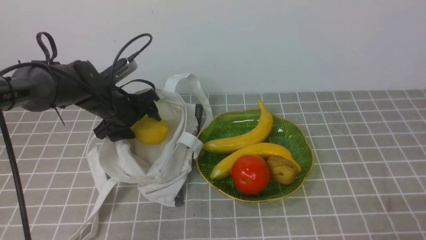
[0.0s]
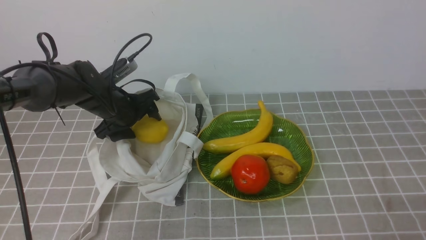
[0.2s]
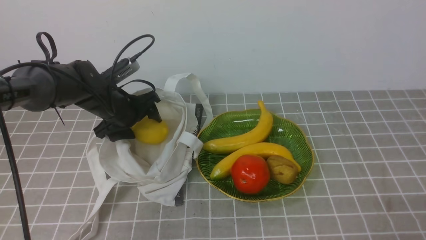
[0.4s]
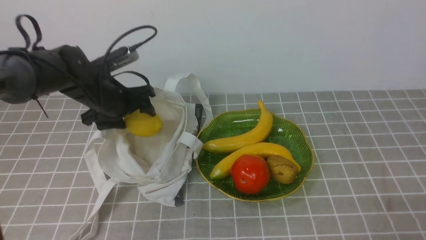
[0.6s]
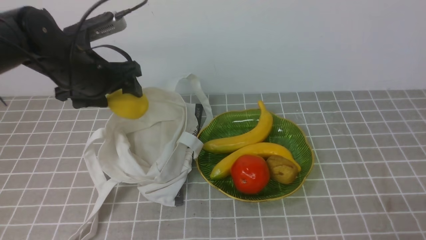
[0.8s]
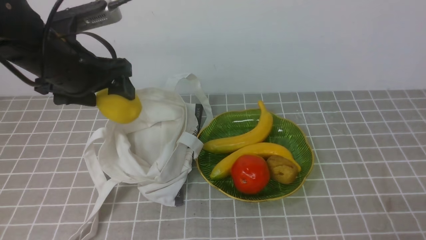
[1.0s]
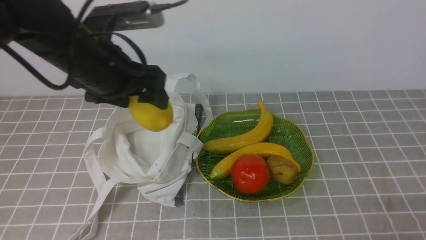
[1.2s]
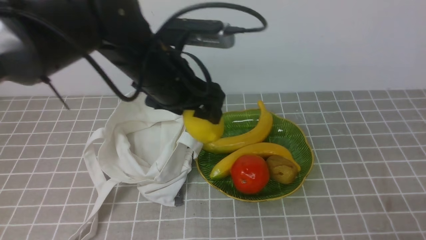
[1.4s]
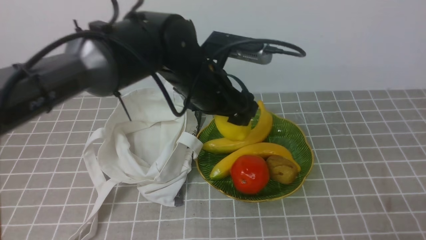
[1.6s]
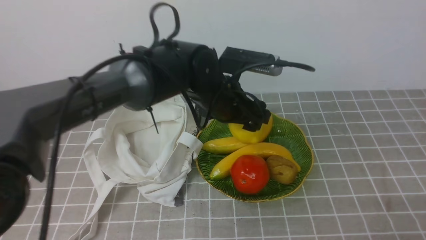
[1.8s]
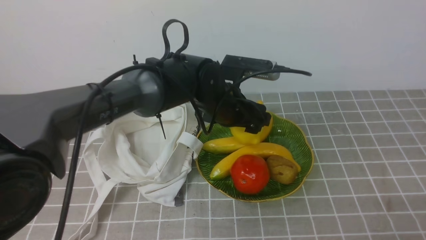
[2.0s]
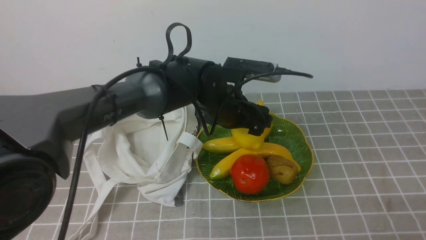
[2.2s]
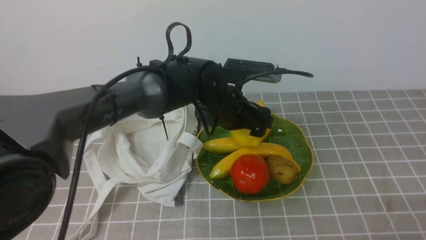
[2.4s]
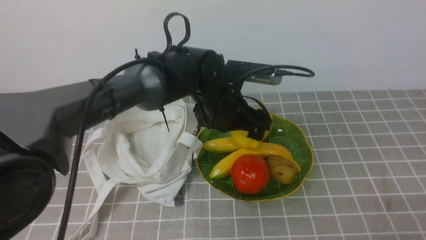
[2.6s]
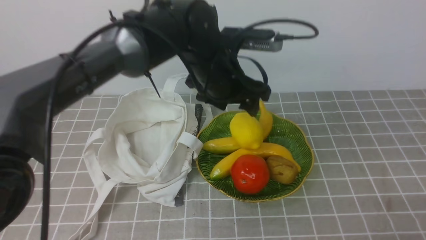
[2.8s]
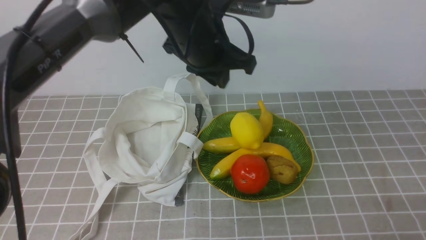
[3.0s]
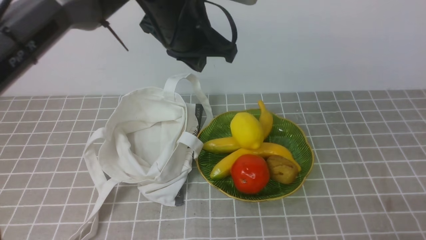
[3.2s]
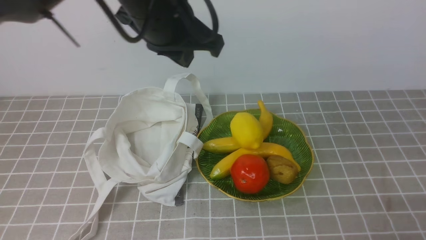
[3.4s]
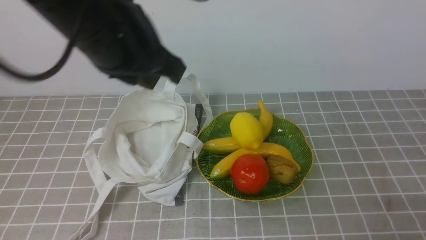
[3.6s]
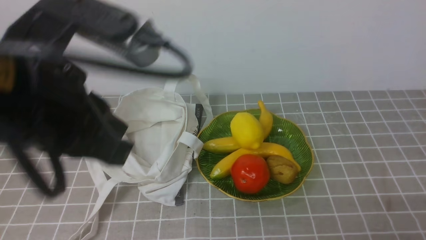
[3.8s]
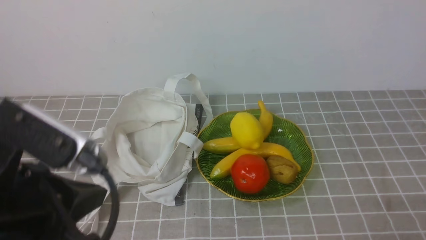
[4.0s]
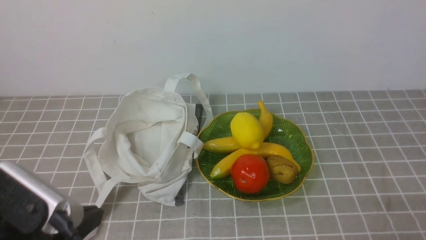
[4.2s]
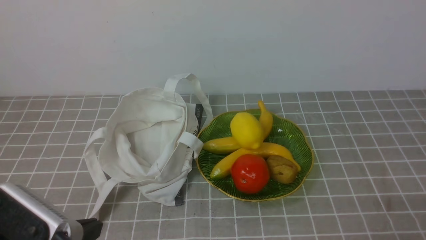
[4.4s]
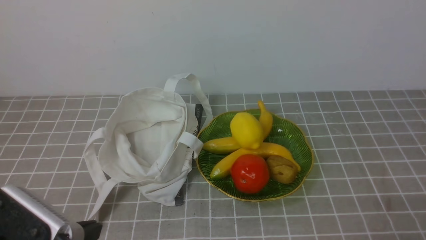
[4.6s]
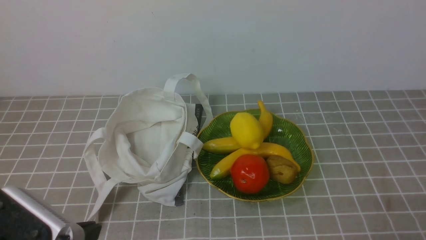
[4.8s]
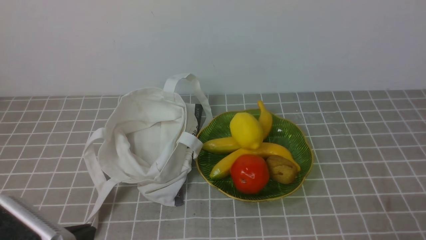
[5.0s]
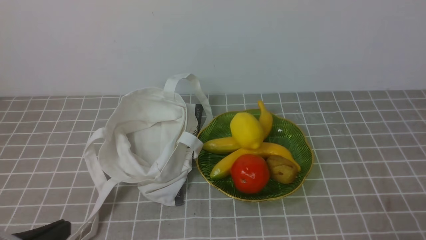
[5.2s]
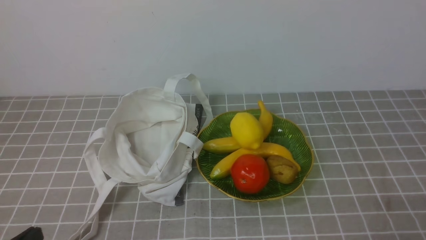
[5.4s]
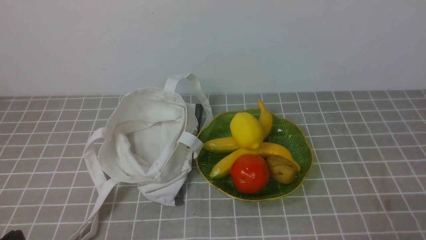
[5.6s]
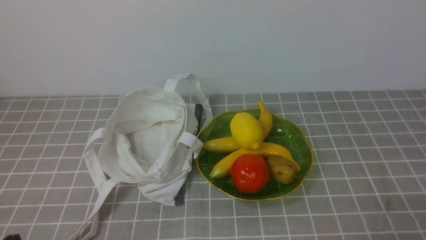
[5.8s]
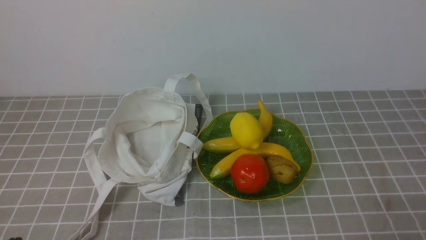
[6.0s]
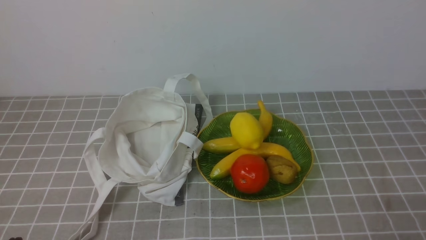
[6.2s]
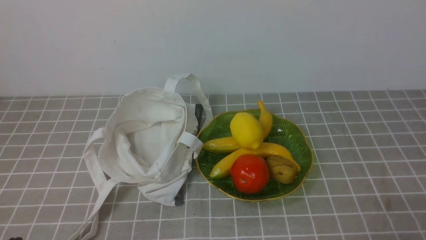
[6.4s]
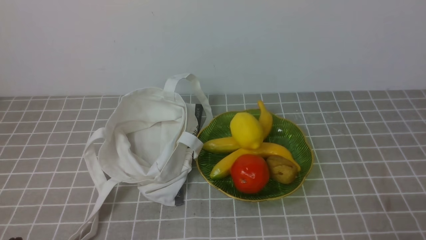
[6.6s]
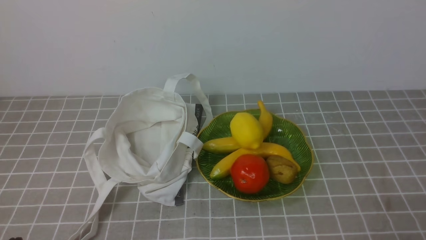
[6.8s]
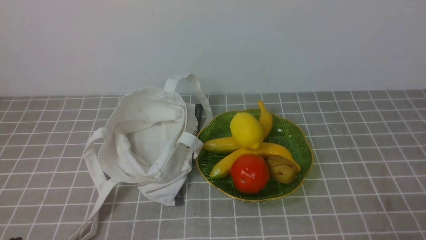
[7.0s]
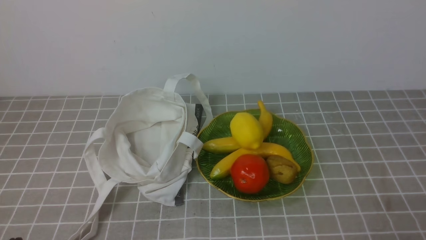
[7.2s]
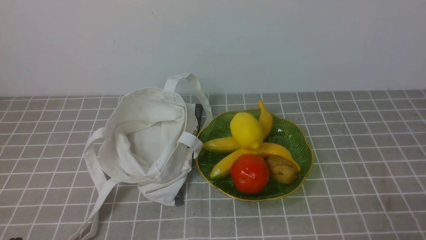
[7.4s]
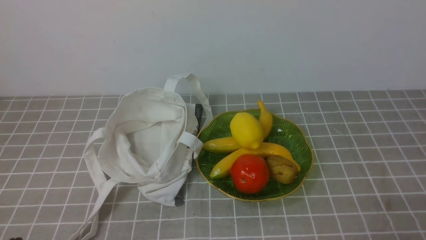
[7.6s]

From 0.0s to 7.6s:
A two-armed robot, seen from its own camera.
Step, from 0.6s to 2.4s: use the left arm to put the lemon into the empty plate on the right.
From 0.0s to 1.6s: The left gripper moves to the right, upward and backward, roughly 20 cm.
From 1.6s to 3.0s: The left gripper reaches about 10 cm downward, then returns, and closes.
From 3.0s to 4.6s: The left gripper is displaced backward and to the left by about 35 cm, and closes up.
From 4.6s to 6.0s: The left gripper heads downward and to the left, covering approximately 10 cm.
From 6.0s to 7.6s: Neither gripper changes place.
